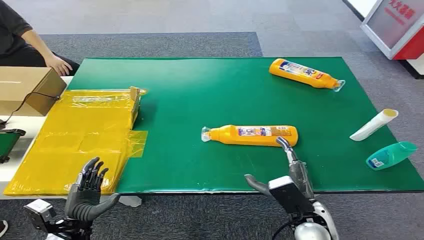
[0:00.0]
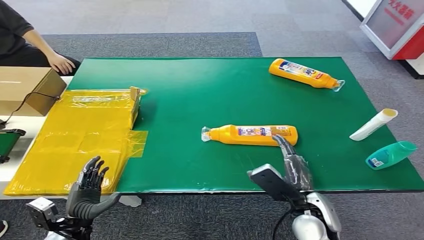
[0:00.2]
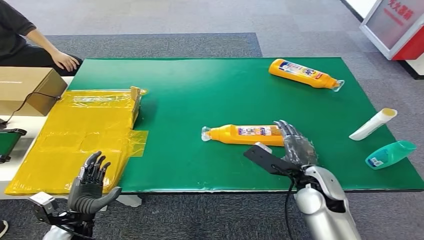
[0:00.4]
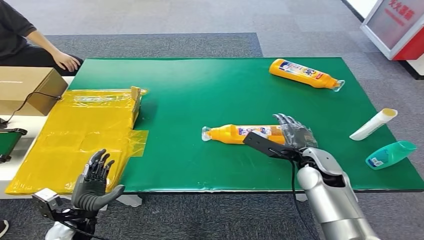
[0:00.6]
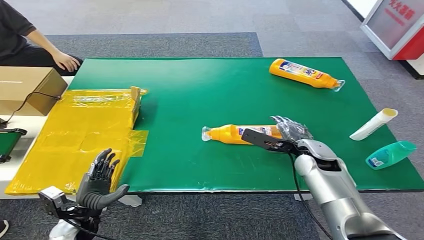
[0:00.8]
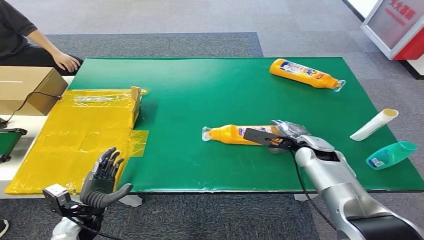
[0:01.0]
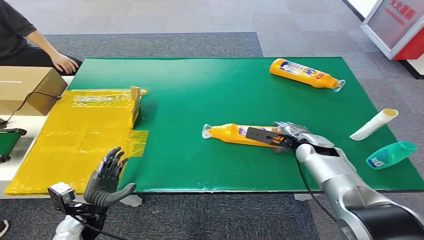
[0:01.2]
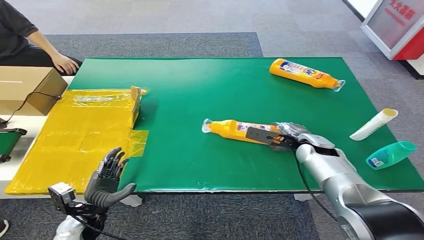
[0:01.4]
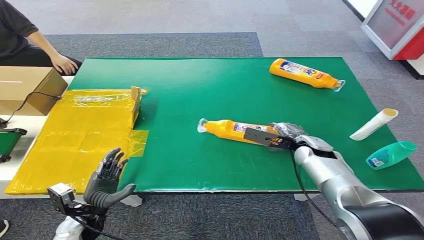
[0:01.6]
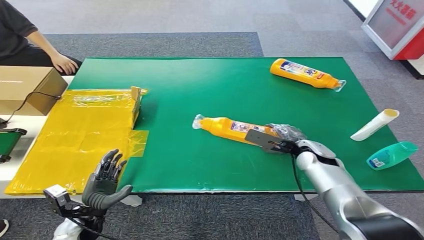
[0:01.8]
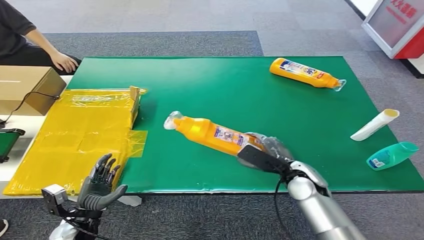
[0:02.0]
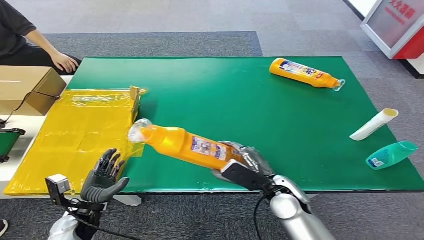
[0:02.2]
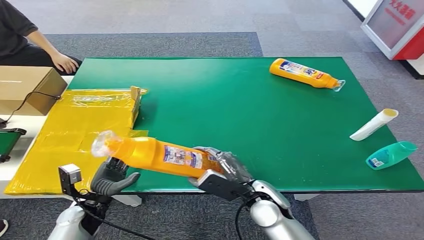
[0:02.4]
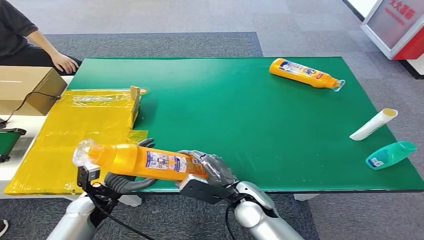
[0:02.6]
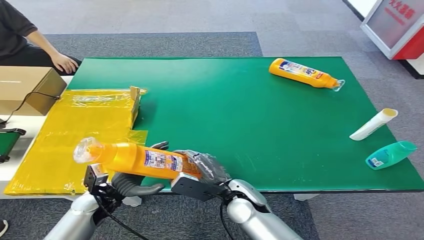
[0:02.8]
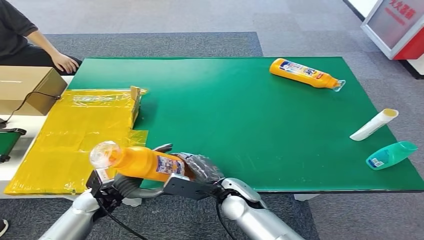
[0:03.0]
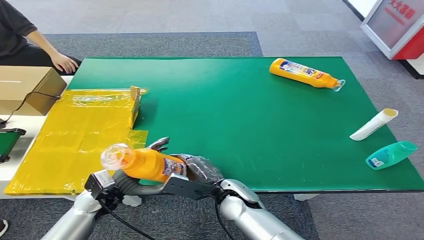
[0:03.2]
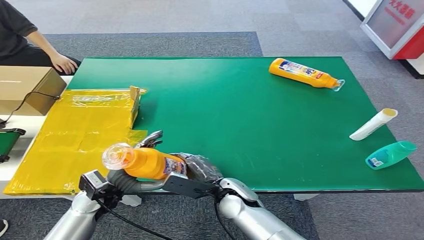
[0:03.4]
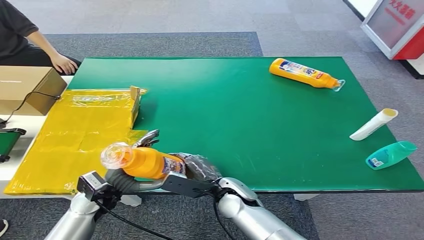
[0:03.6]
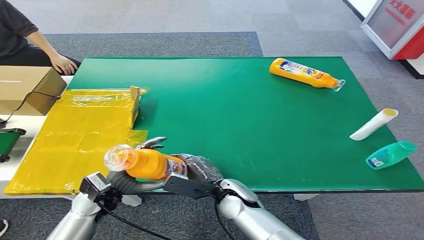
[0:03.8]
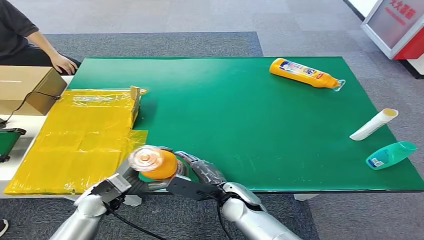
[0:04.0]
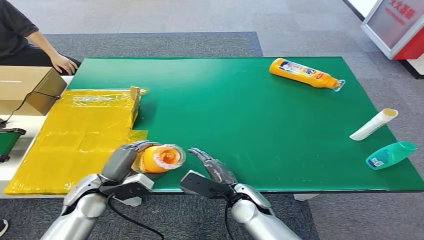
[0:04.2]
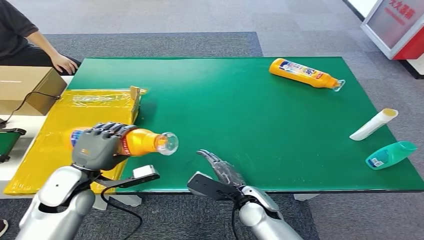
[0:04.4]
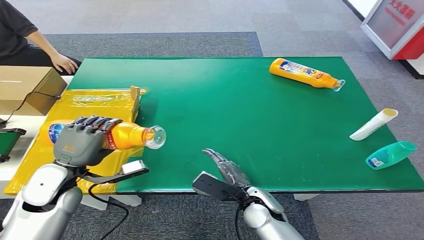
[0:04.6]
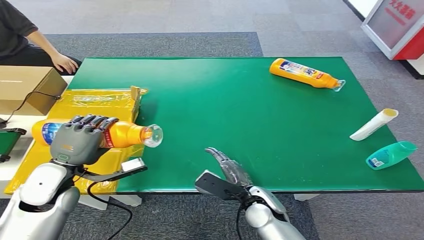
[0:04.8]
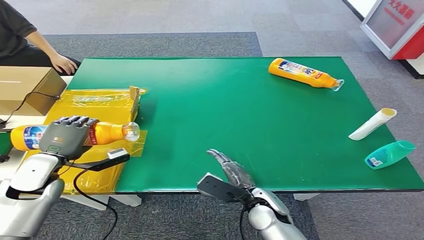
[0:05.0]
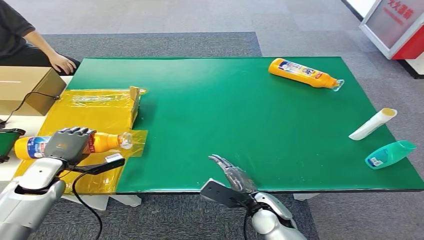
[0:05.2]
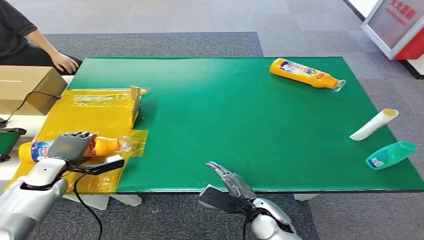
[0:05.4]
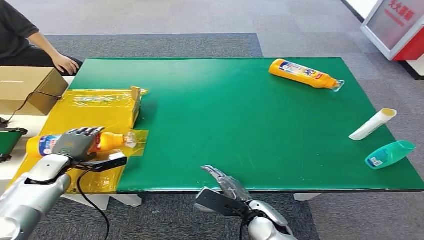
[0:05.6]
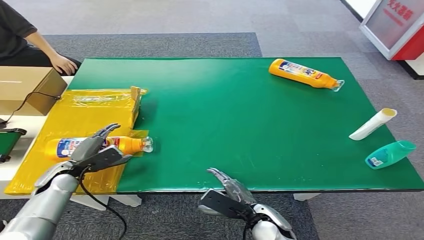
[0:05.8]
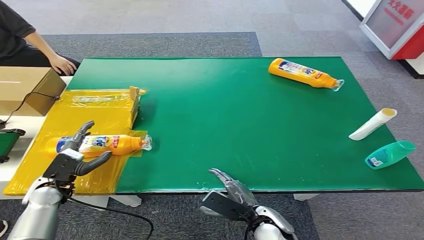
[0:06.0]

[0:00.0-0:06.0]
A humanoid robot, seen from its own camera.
Step, 0:00.0 to 0:01.8: Pick up the bottle from the table.
Step, 0:02.2 to 0:06.0: Turn the bottle to the front side.
0:01.6 to 0:03.0: The right hand heads to the left and backward, covering roughly 25 cm. Meanwhile the left hand goes approximately 5 cm forward.
0:03.0 to 0:04.4: The left hand is displaced upward by some 10 cm.
0:04.4 to 0:06.0: The right hand shifts approximately 5 cm backward, while the left hand heads to the left and downward, covering some 10 cm.

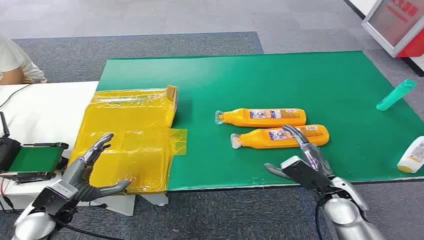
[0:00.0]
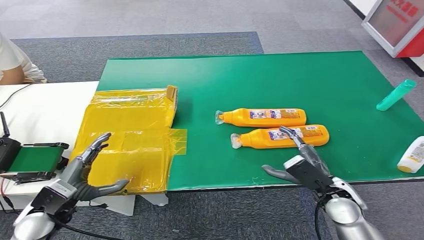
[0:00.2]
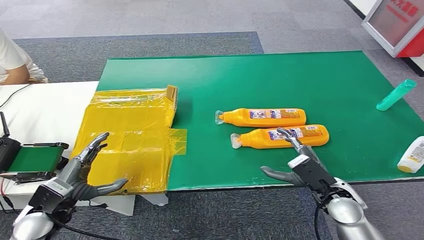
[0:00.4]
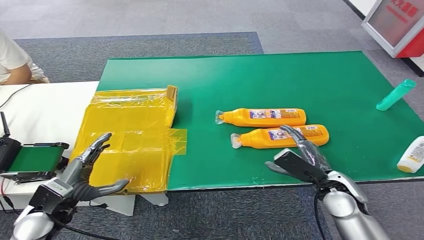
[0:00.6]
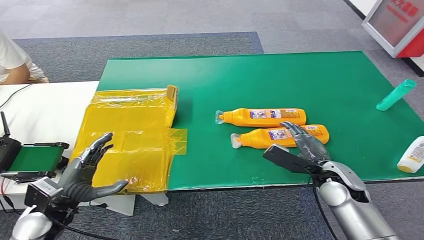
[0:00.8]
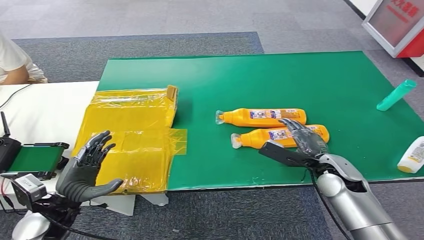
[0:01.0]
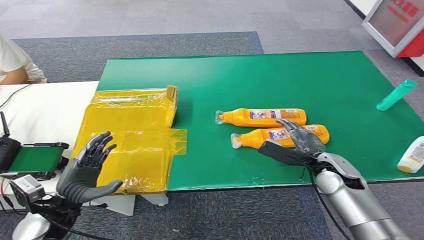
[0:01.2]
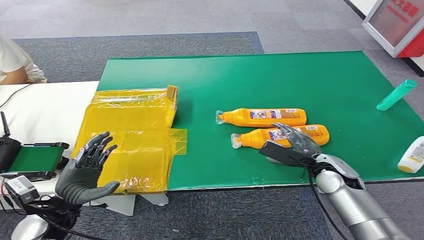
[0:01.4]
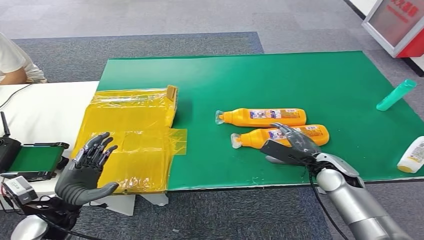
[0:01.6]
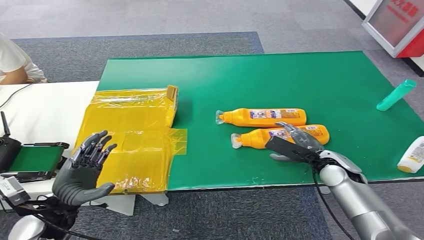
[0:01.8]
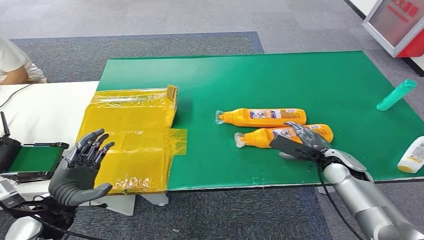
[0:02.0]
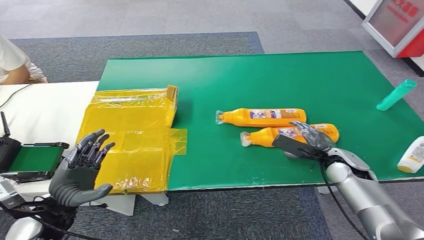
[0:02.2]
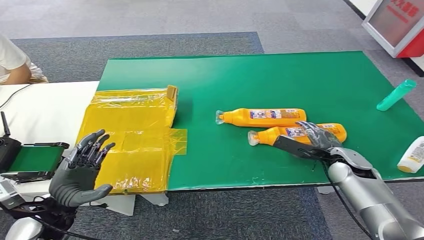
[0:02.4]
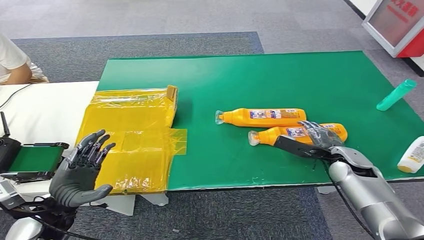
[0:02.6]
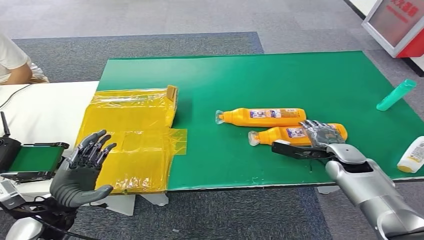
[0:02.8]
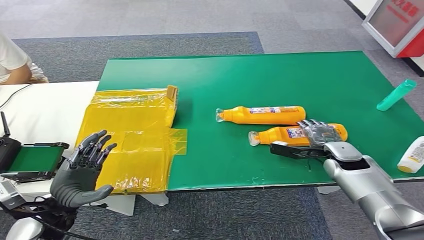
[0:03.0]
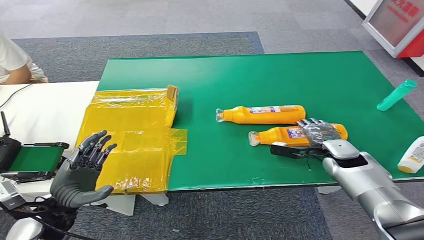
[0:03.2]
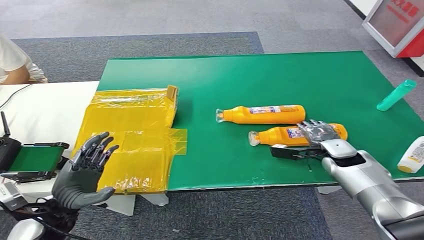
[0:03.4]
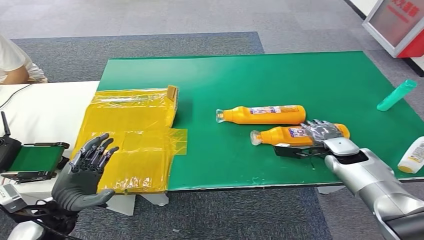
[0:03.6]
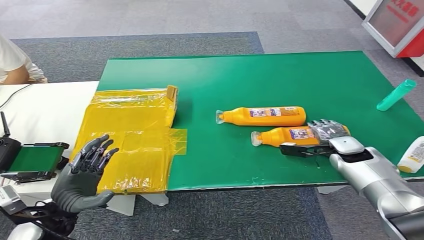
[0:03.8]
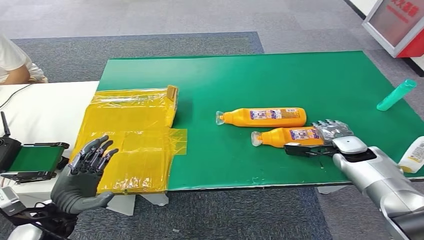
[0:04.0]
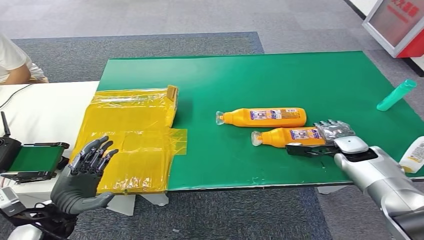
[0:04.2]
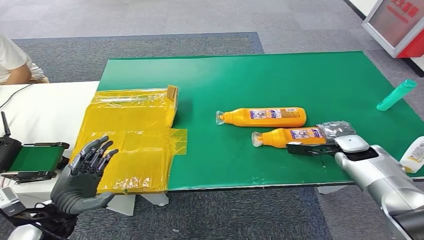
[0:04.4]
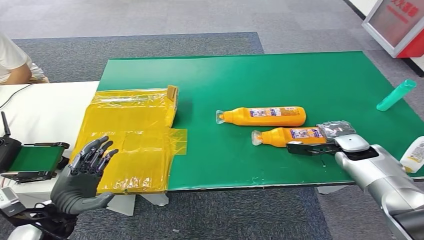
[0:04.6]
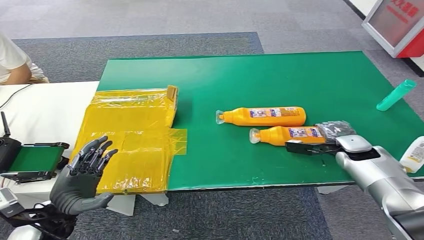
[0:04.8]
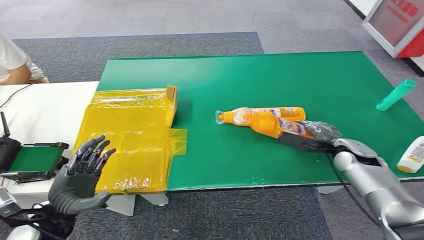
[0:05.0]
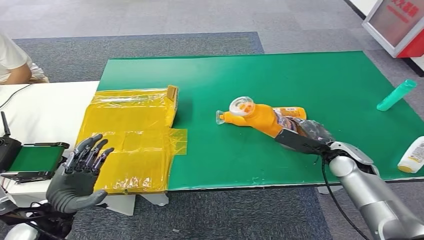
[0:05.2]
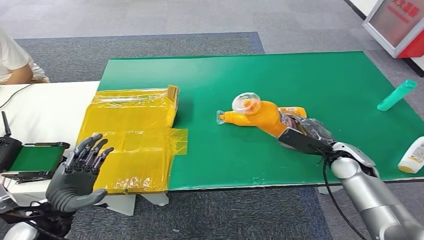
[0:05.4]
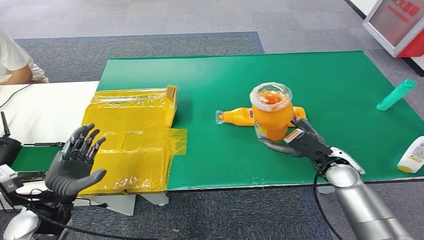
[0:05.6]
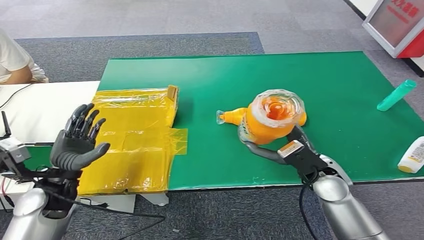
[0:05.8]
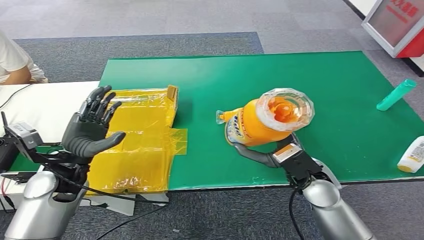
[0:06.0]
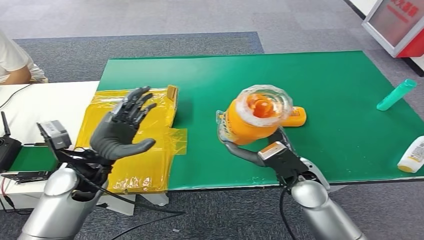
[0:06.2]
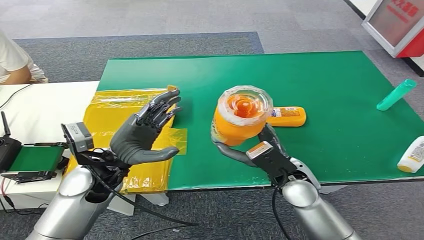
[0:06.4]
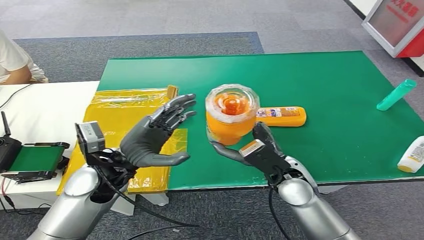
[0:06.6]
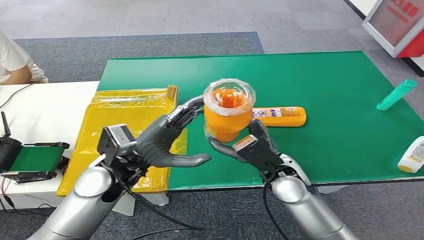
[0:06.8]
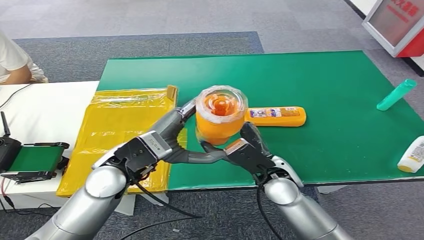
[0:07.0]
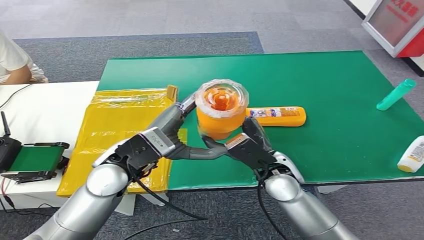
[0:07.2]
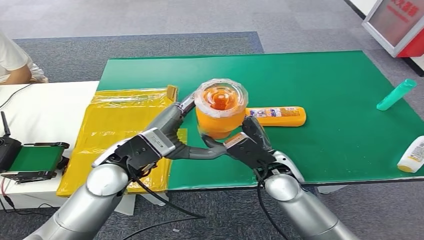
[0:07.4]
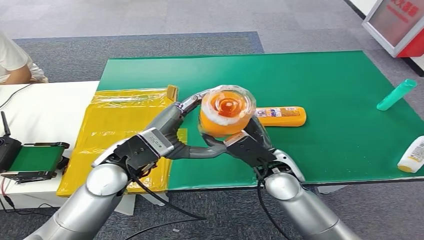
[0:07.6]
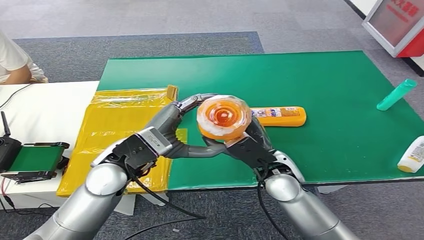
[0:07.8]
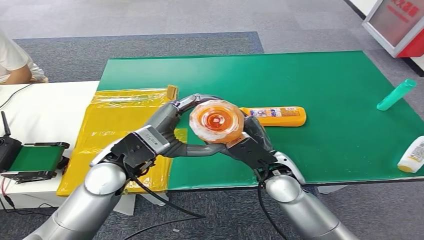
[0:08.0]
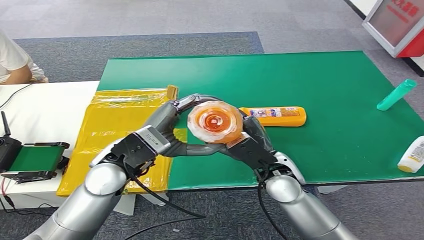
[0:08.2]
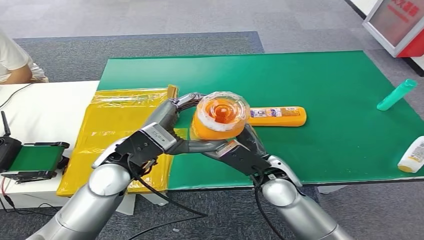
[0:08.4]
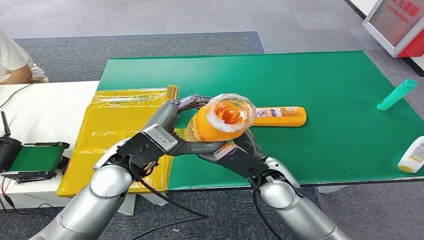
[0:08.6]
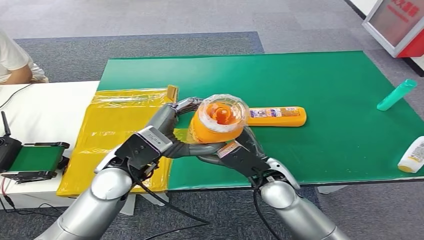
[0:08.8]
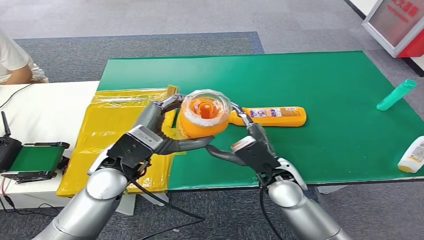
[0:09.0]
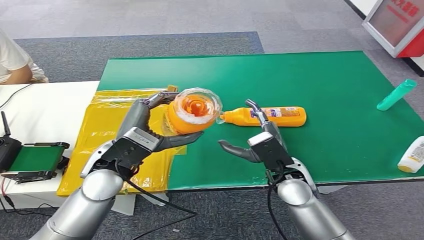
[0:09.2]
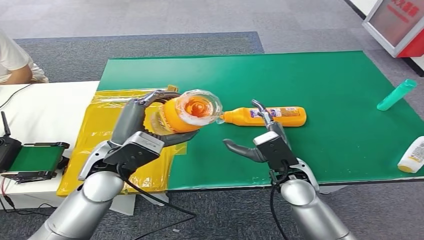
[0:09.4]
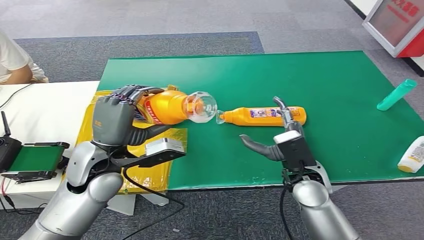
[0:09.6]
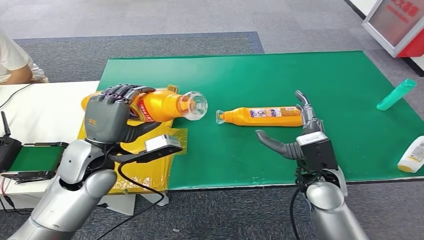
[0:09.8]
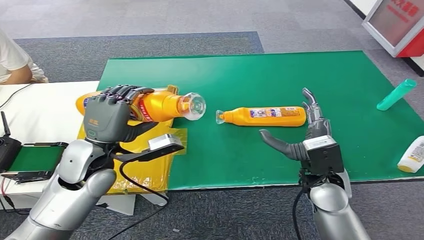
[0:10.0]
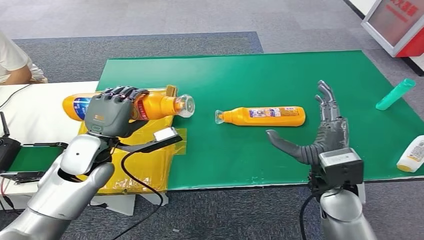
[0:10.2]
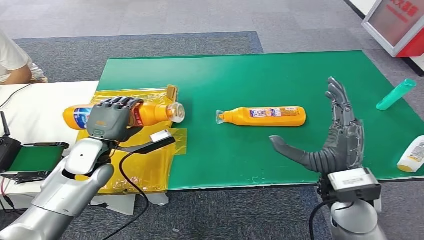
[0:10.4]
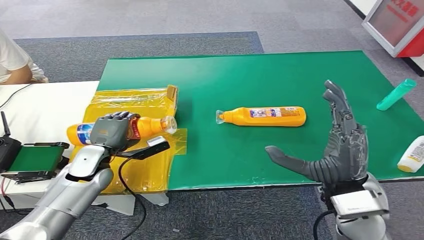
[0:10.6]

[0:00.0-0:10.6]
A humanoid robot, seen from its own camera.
Step, 0:00.0 to 0:05.2: Pick up the bottle from the table.
0:01.6 to 0:03.0: The right hand moves some 5 cm.
0:03.0 to 0:04.6: The hands stay close to where they were, moving slightly.
0:07.6 to 0:09.0: The hands stay close to where they were, moving slightly.
